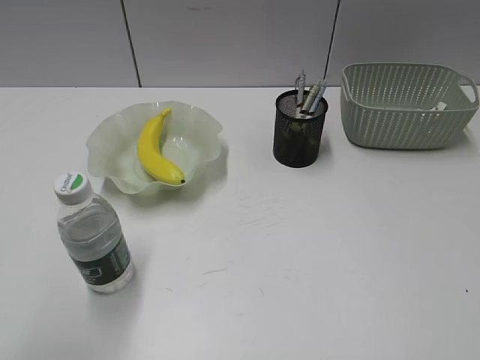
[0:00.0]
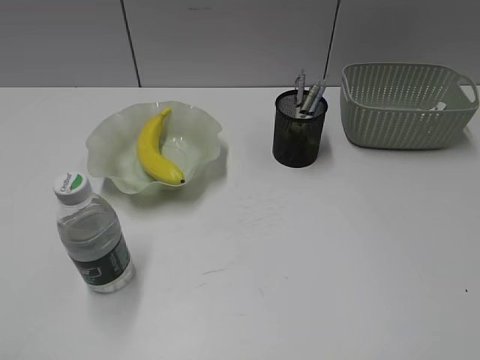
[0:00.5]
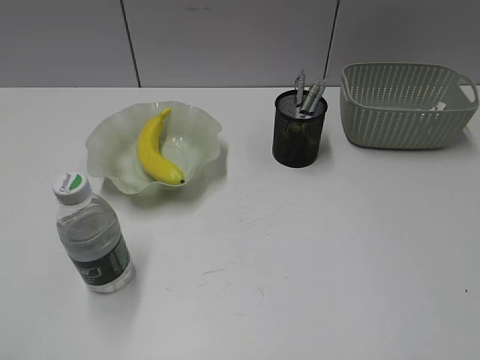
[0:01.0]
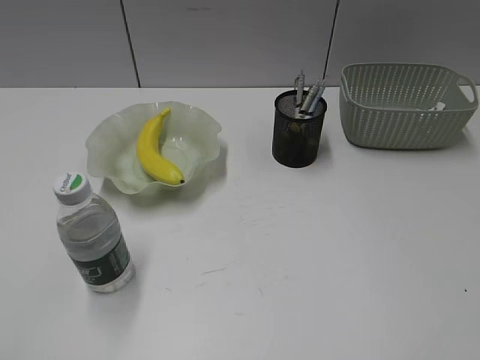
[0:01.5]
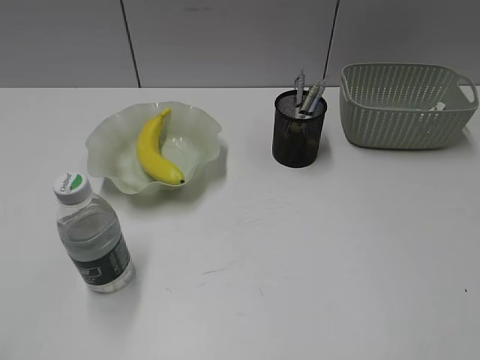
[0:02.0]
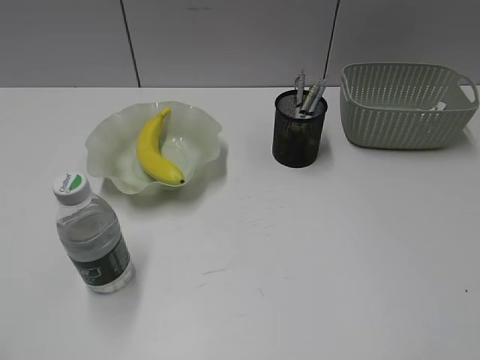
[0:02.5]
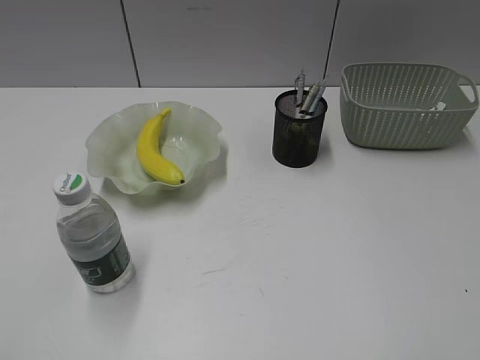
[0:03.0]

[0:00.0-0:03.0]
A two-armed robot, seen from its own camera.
0:00.0 to 0:01.5: The left gripper shifts about 15 cm backward and to the left.

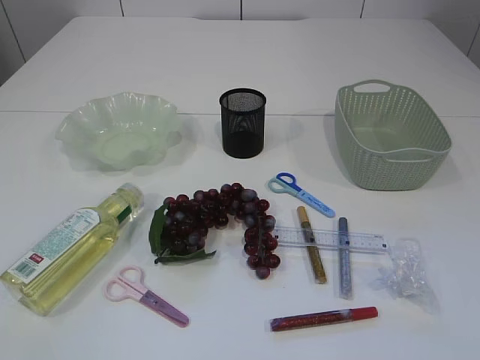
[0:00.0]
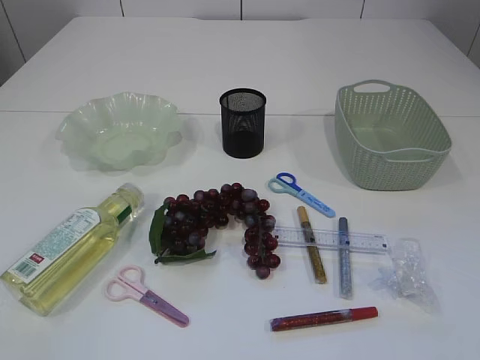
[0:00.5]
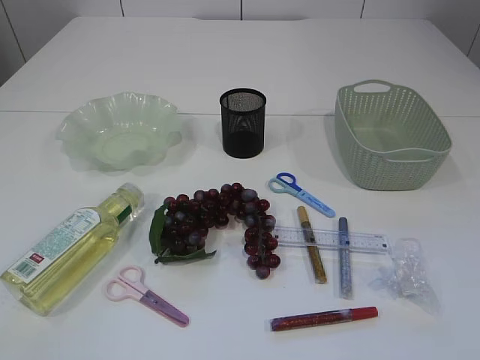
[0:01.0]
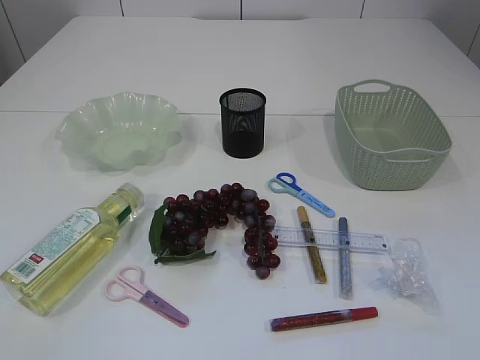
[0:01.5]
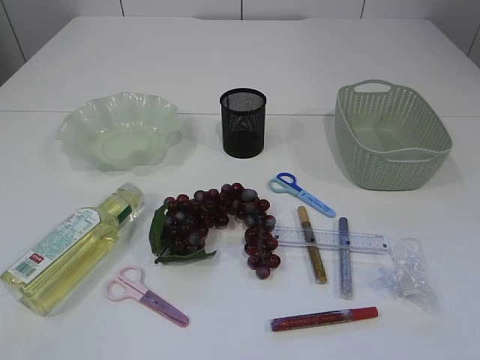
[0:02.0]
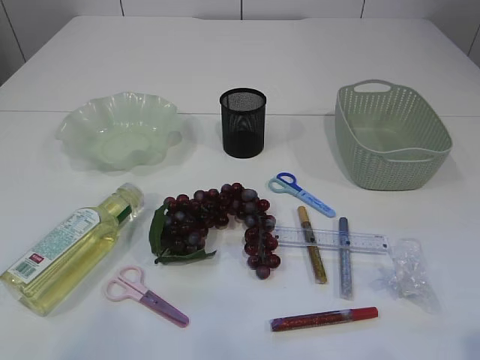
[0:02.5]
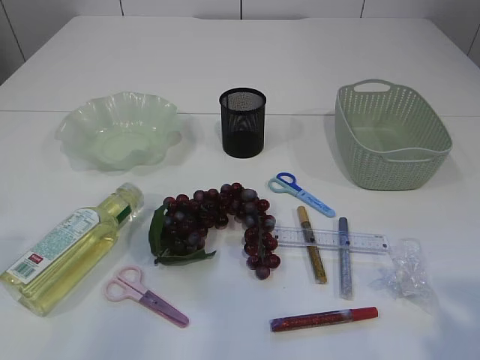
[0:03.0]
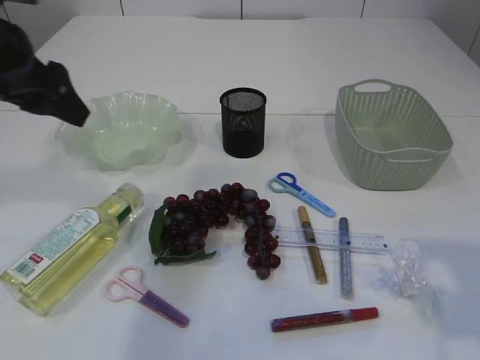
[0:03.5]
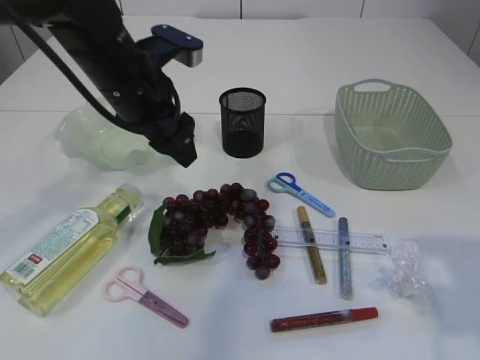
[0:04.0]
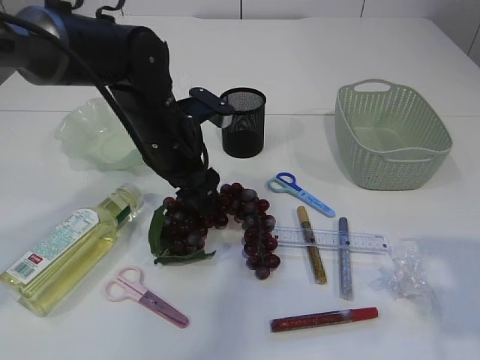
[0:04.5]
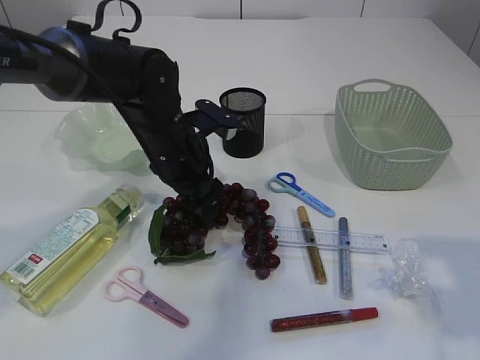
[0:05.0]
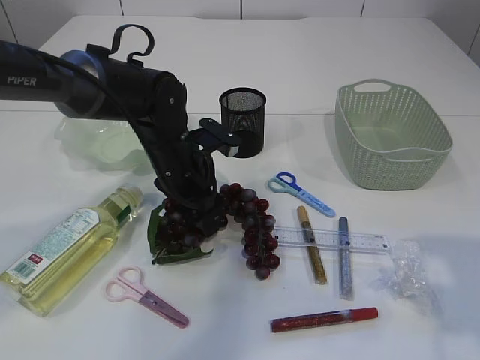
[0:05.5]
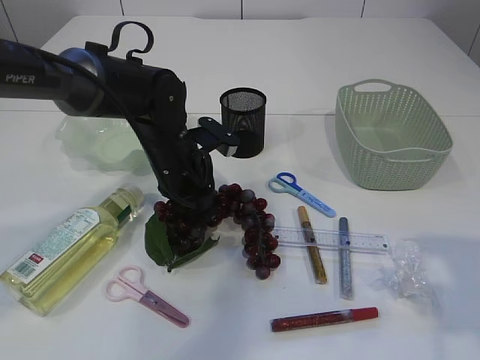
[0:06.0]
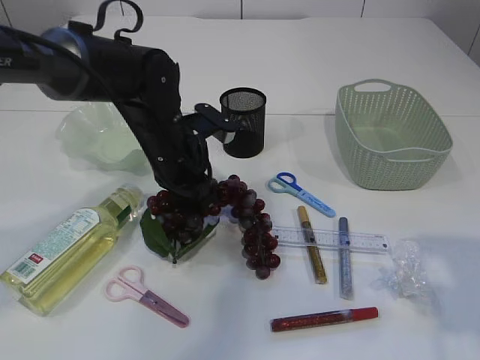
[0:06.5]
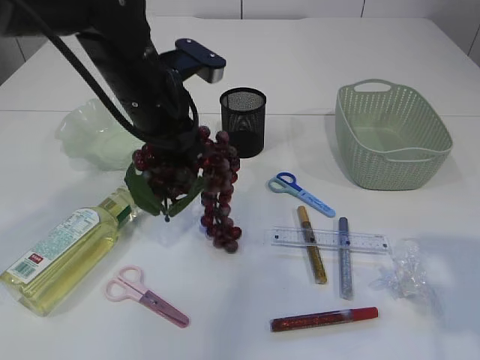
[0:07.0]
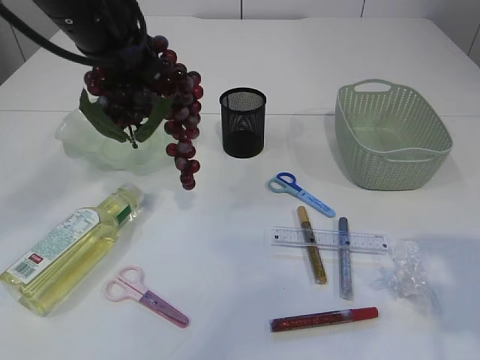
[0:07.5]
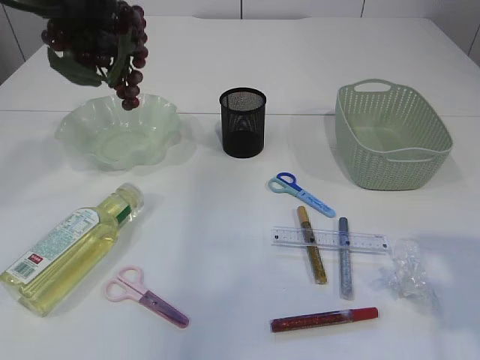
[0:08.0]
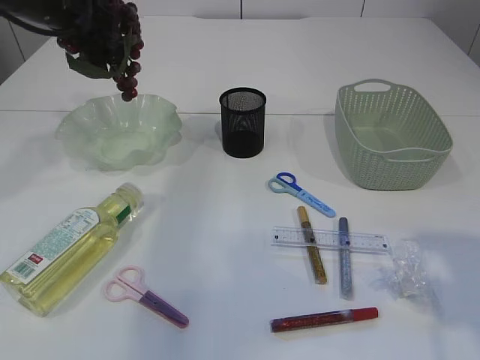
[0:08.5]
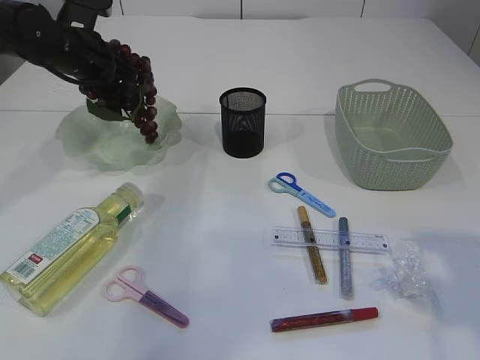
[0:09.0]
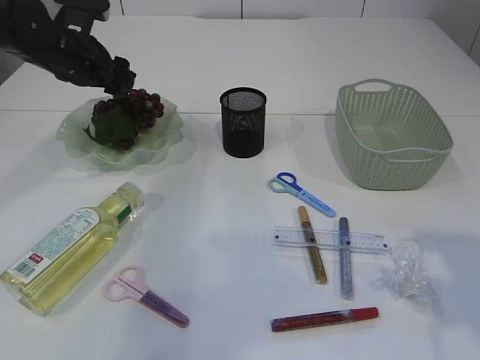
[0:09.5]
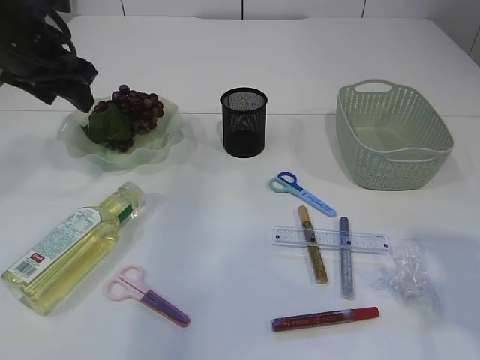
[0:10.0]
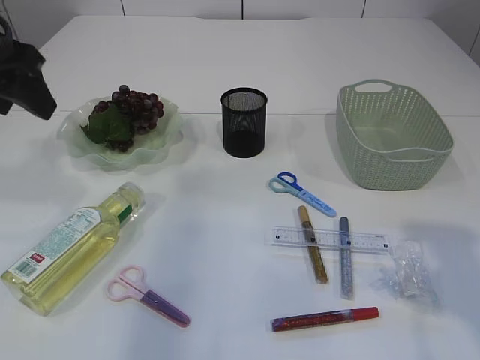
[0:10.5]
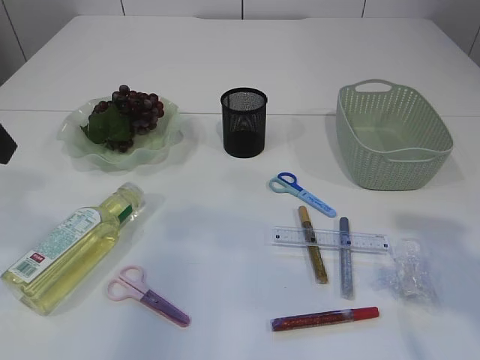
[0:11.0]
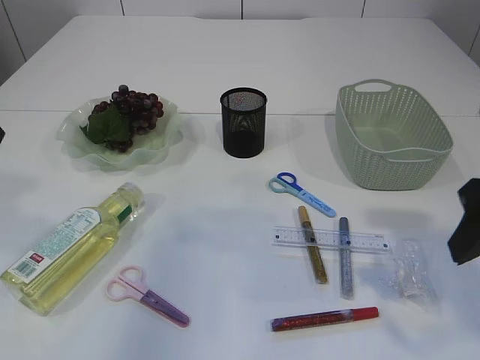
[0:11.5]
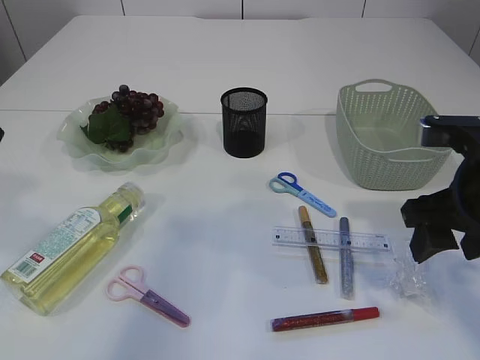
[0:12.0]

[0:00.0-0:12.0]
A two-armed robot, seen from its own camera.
Step, 0:00.0 to 0:07.0: Pick up the grapes.
Step, 0:07.5 to 0:10.0: Place the grapes in the plate.
0:02.0 to 0:04.0: The right gripper travels forward by some 15 cm; the left gripper shifts roughly 40 cm forward and to the right.
0:04.0 to 0:06.0: The left gripper shifts some 10 cm downward, and closes.
0:06.0 to 0:08.0: The left gripper goes approximately 25 cm upward and to the left.
0:08.0 to 0:10.0: The left gripper is displaced downward by about 5 cm, and opens up.
0:10.0 to 0:12.0: The right gripper heads forward and downward, covering roughly 15 cm; the left gripper is displaced backward by roughly 20 cm.

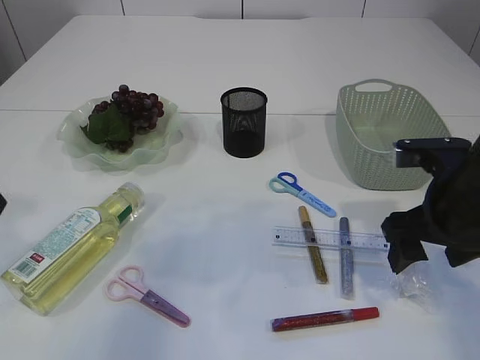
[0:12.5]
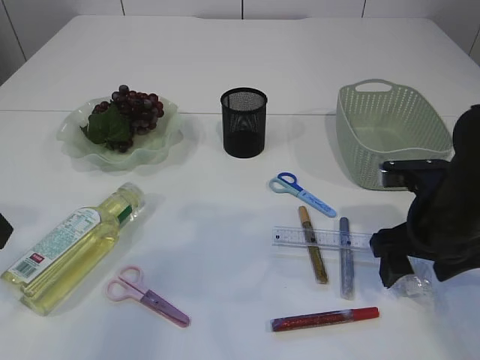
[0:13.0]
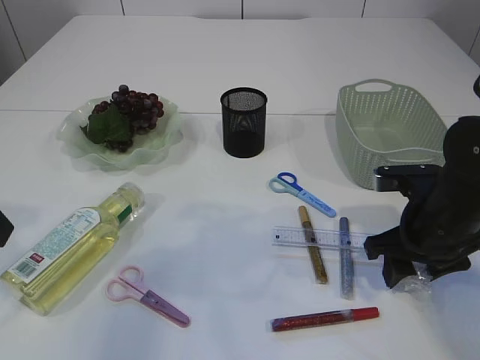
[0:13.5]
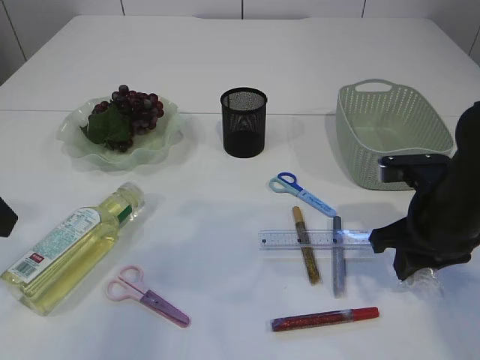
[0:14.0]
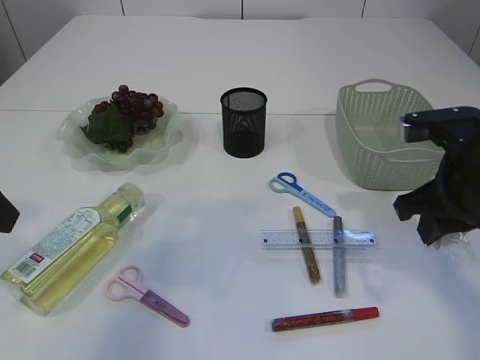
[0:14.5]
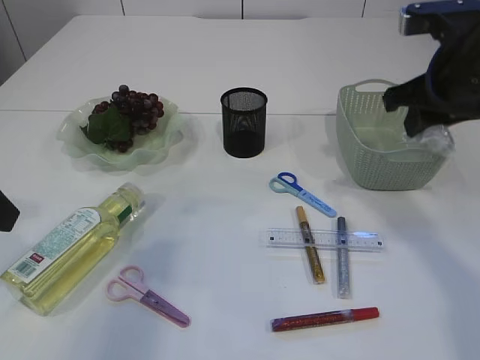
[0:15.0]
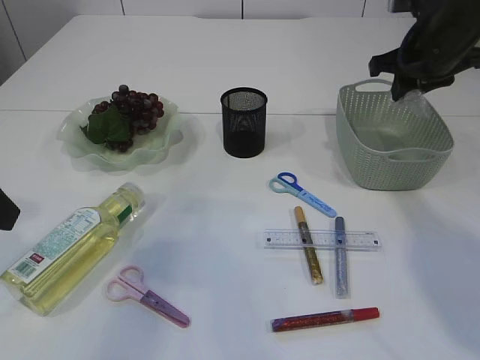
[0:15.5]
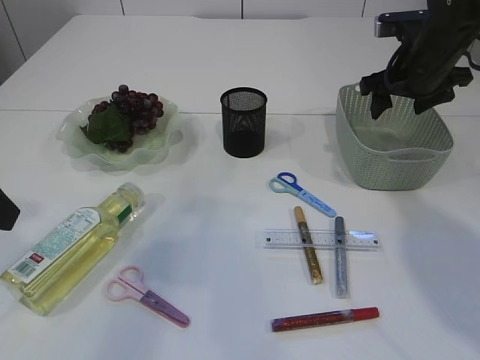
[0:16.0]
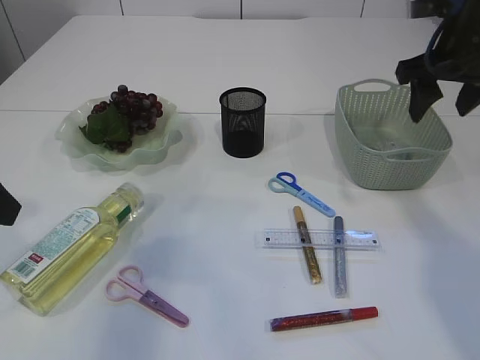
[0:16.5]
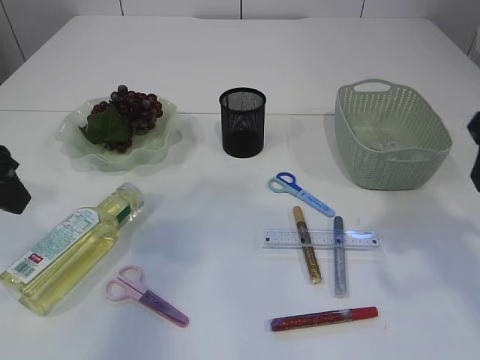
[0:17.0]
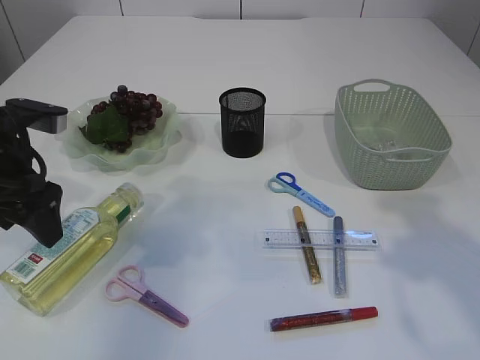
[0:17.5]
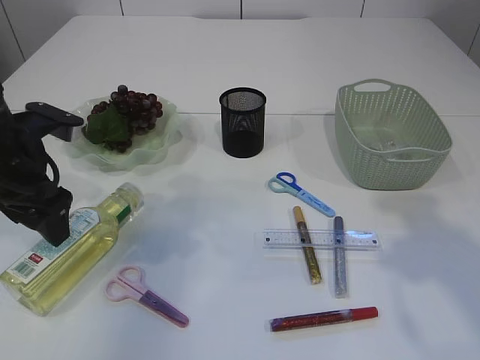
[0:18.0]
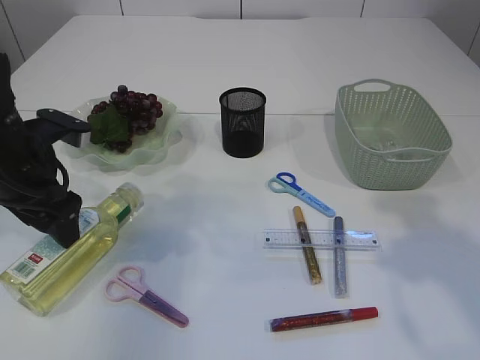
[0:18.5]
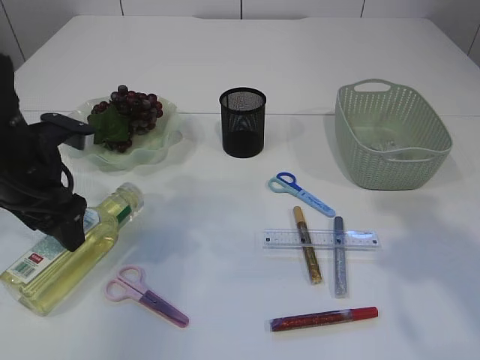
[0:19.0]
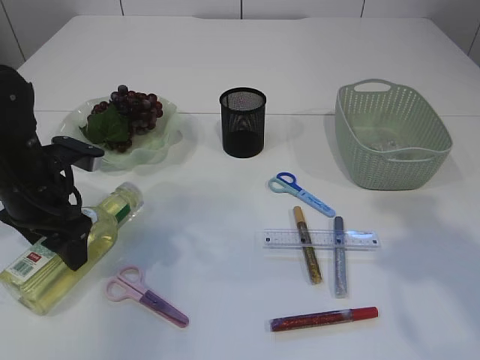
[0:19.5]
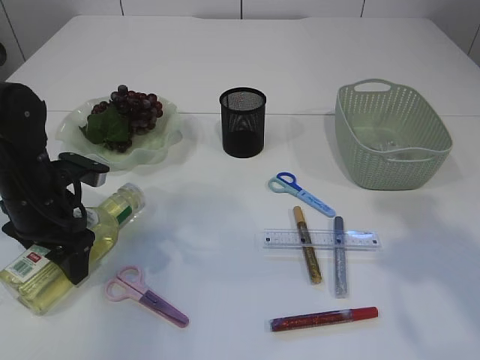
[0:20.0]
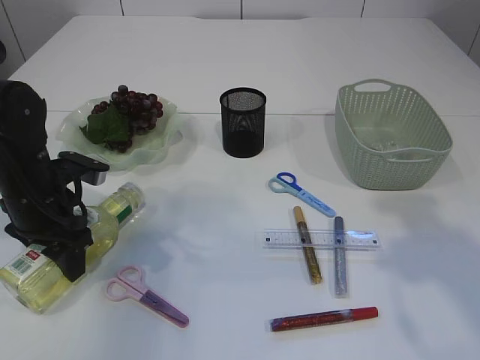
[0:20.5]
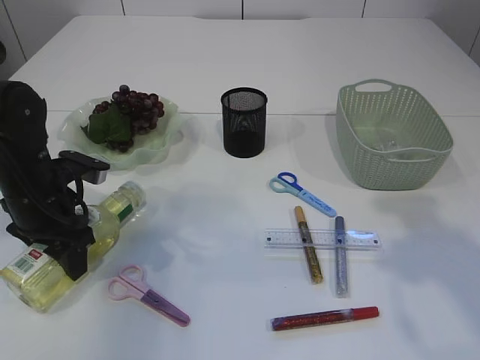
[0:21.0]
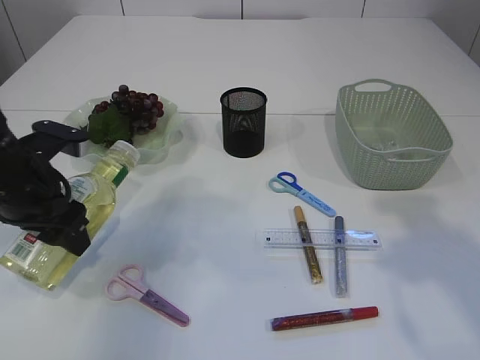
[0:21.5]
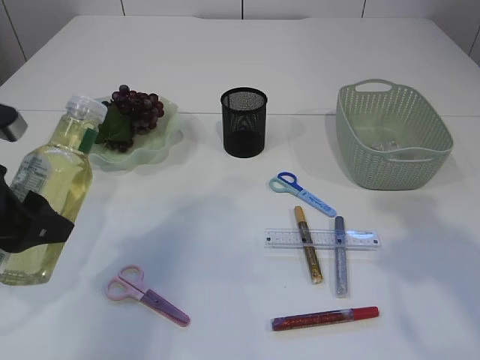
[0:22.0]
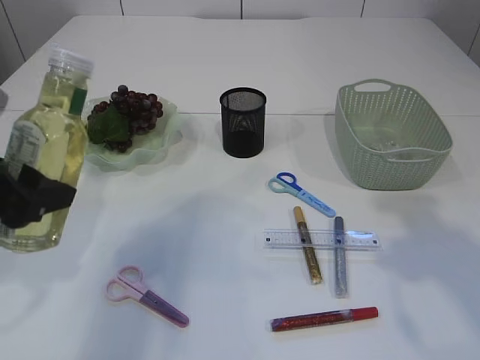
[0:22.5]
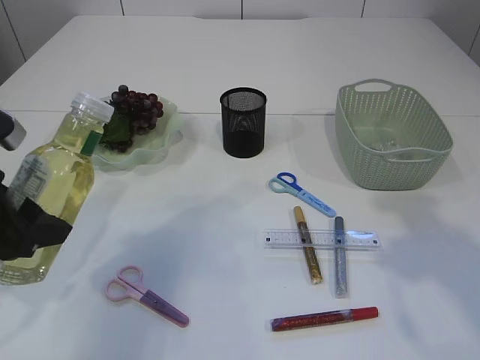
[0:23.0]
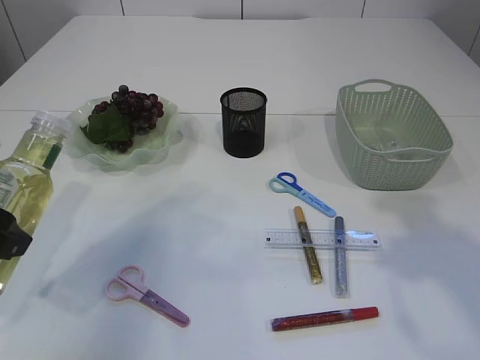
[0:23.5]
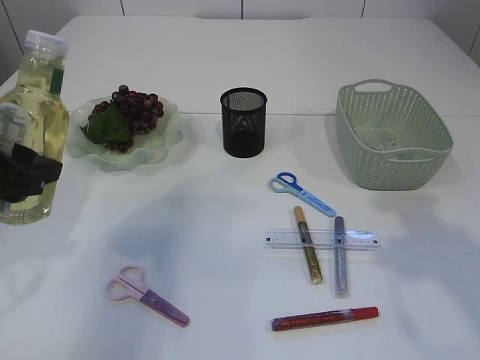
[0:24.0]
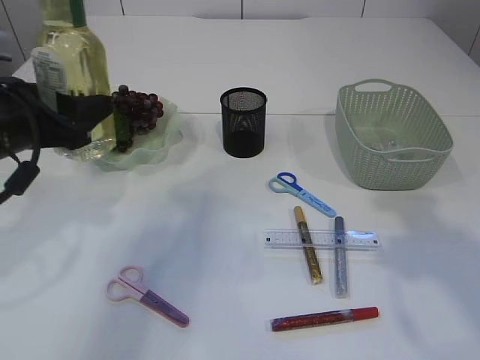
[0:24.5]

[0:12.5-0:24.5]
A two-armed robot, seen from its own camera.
Step, 0:14.5 to 0:16.5: Place the plastic in the basket.
Step, 0:17.0 to 0:21.5: Pick up the bottle with the left arm.
0:12.5 to 0:14.5: The right gripper travels downward and back again, about 5 cm each way, and closes up.
0:14.5 to 0:16.5: The right gripper moves forward and upward, about 15 cm, and opens.
0:16.5 to 0:18.5: The right gripper goes roughly 20 cm backward. Meanwhile the left gripper shifts roughly 15 cm forward and downward, and opens up.
0:18.5 to 0:20.5: The left gripper travels downward by some 5 cm.
0:20.5 to 0:22.5: The left gripper moves upward and backward, some 15 cm.
0:22.5 to 0:24.5: The left gripper travels forward by some 5 cm.
